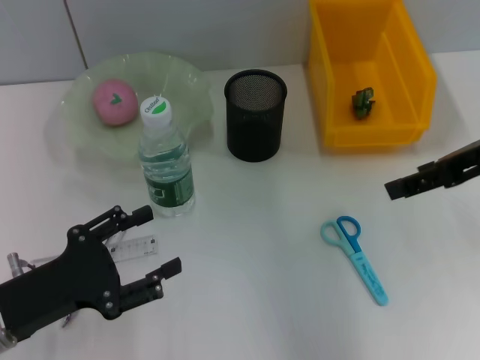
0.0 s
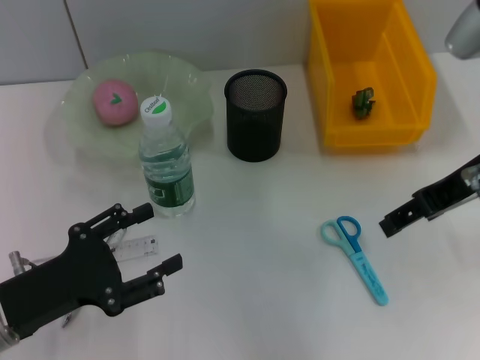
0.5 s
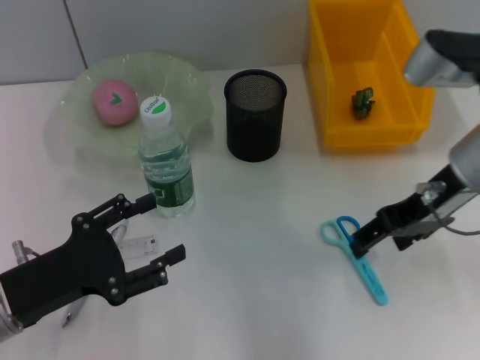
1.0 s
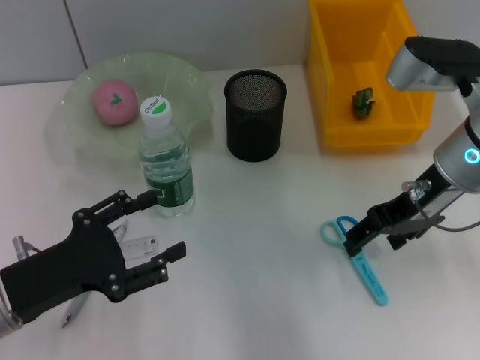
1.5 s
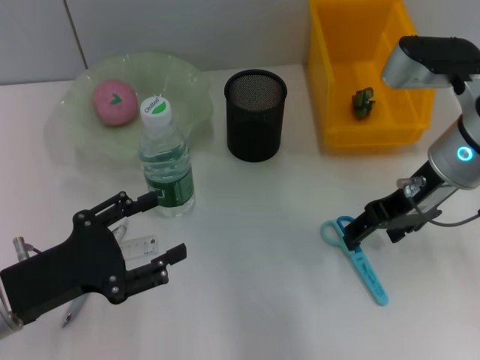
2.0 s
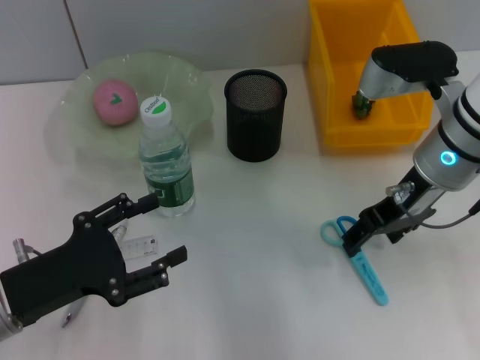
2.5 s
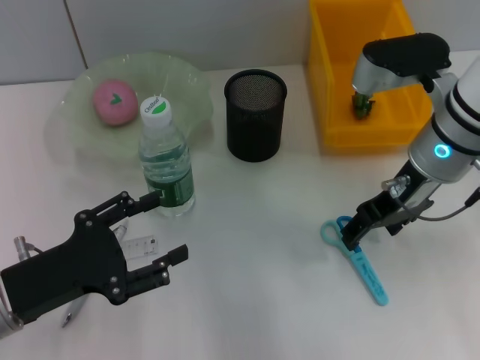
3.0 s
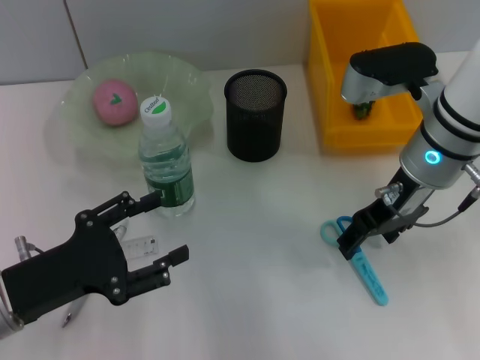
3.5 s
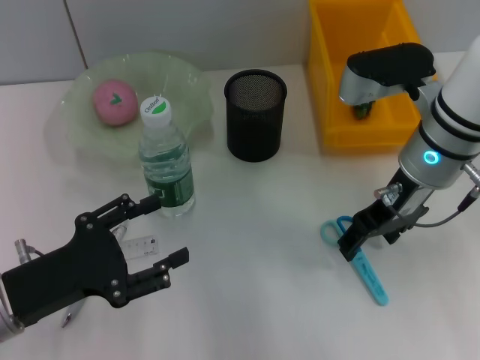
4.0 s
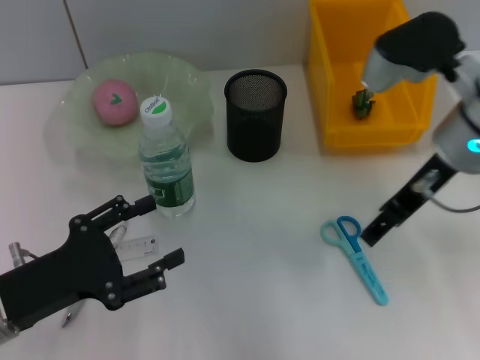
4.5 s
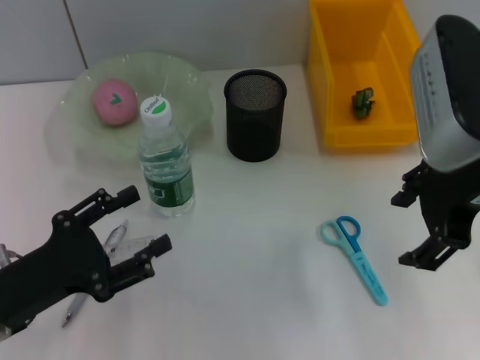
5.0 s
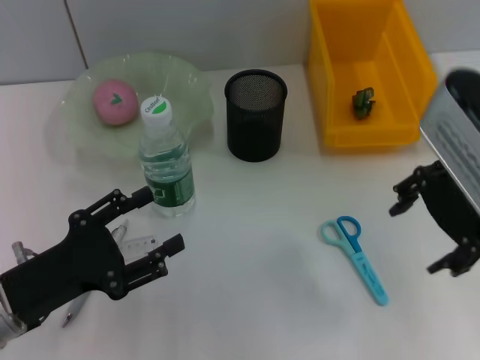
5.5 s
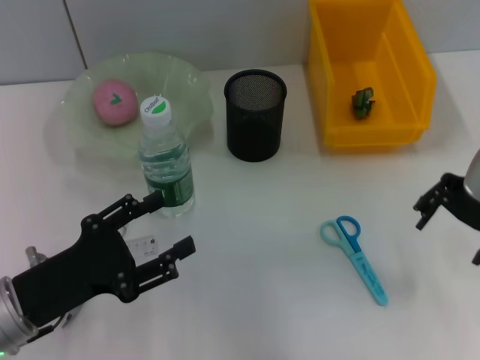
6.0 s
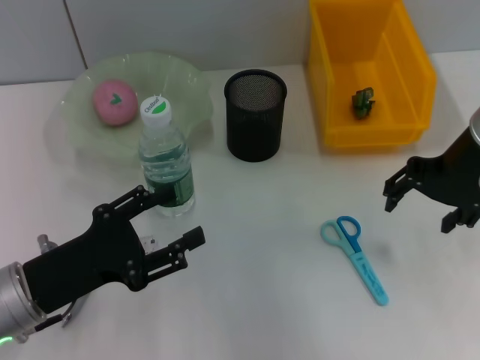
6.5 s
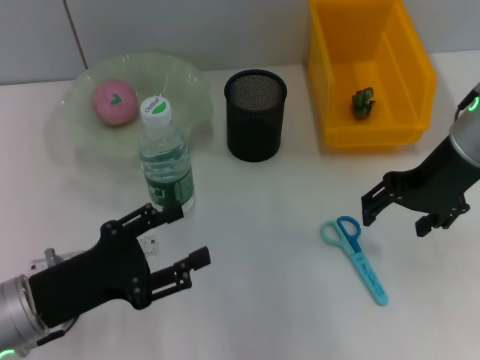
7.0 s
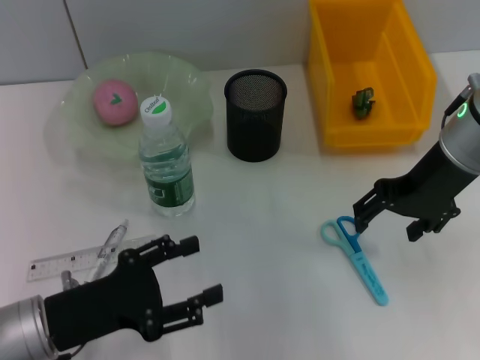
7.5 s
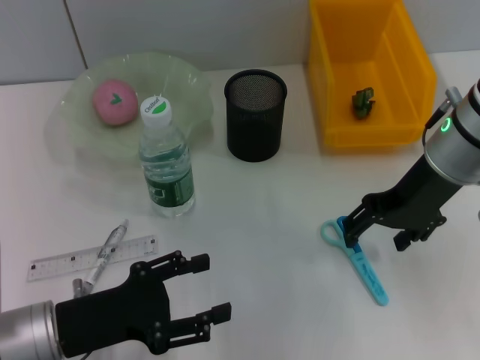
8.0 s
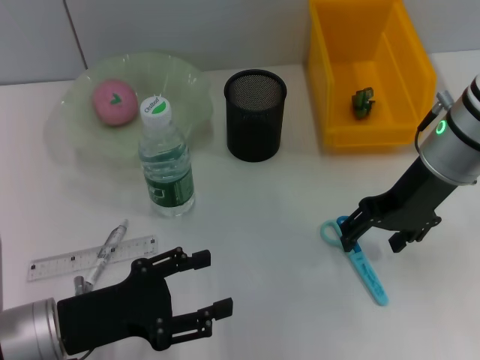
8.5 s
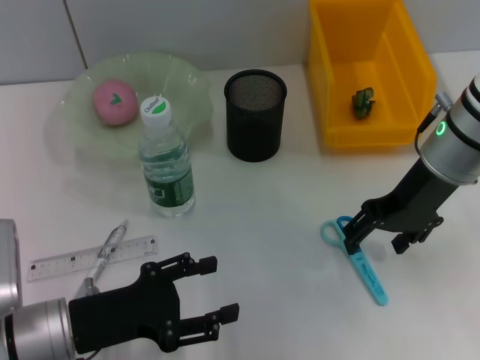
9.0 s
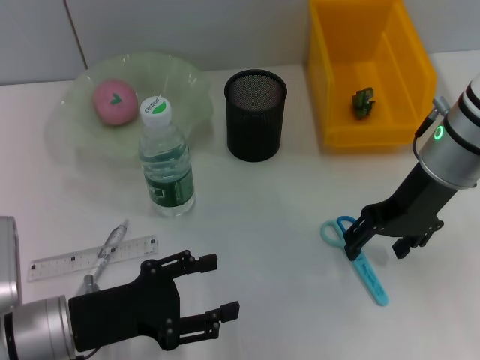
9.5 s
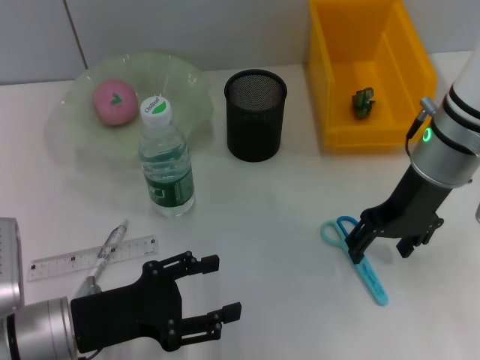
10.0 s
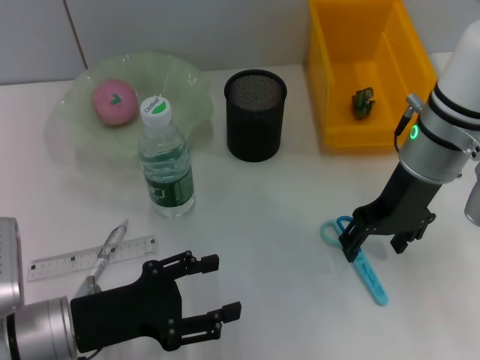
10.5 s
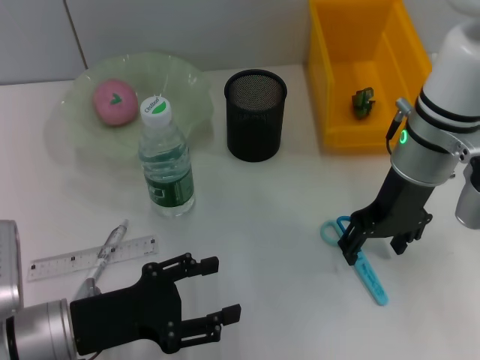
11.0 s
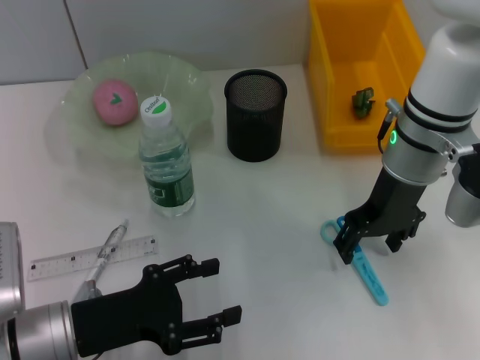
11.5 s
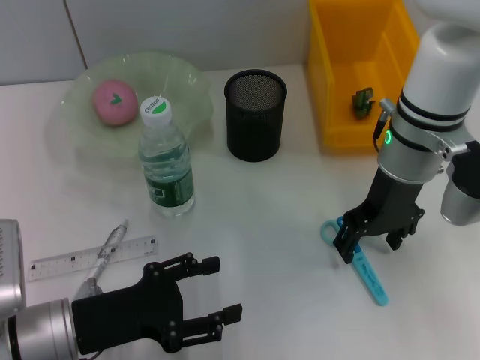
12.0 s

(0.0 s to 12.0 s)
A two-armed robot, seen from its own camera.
0.0 s - 2.0 s: The right gripper heads to the left and downward, covering some 10 cm.
2.0 s - 4.0 s: The grippers stay close to where they were, moving slightly.
4.0 s - 6.0 s: The right gripper travels upward by about 5 cm.
6.0 s - 8.0 s: The right gripper ends up about 5 cm from where it was.
8.0 s - 12.0 s: The grippers stay close to where they were, moving slightly.

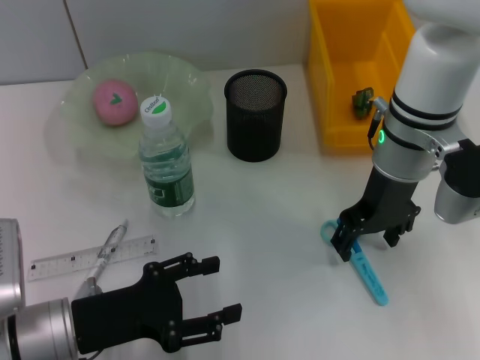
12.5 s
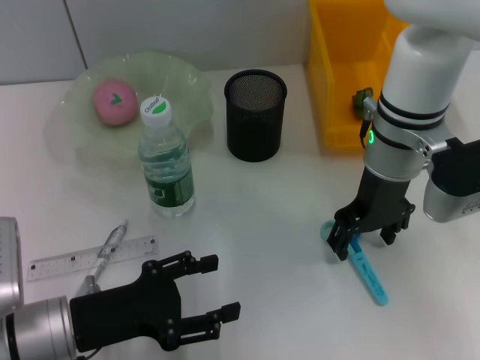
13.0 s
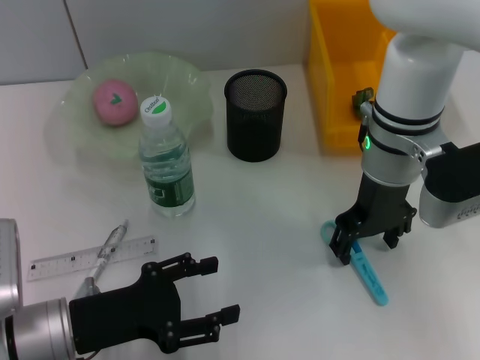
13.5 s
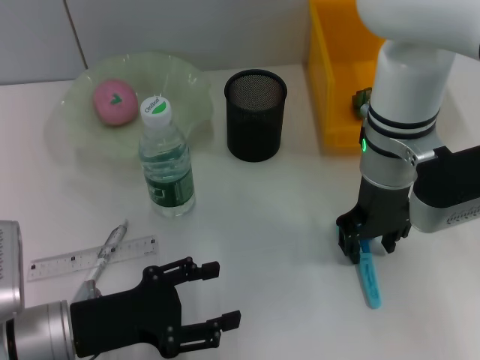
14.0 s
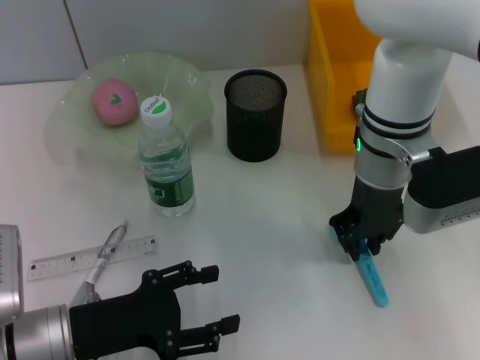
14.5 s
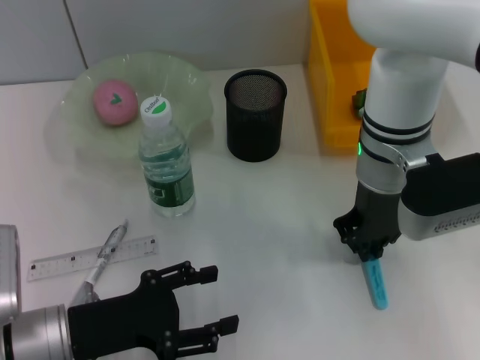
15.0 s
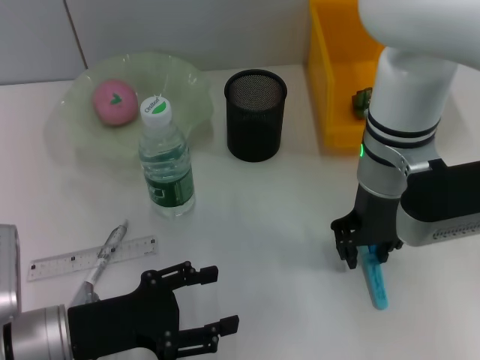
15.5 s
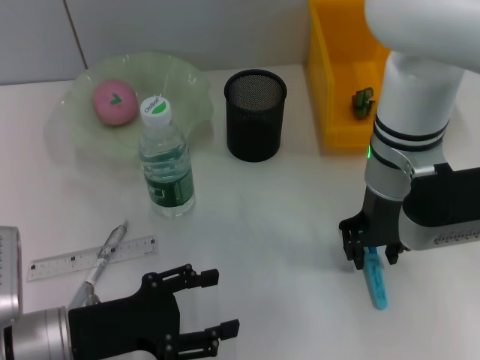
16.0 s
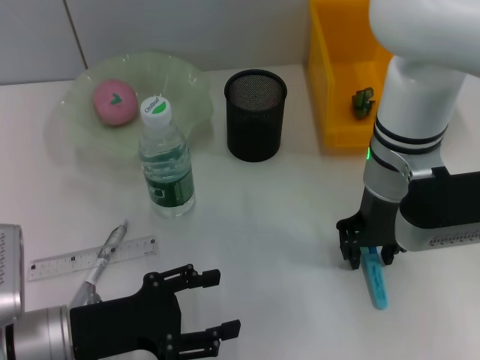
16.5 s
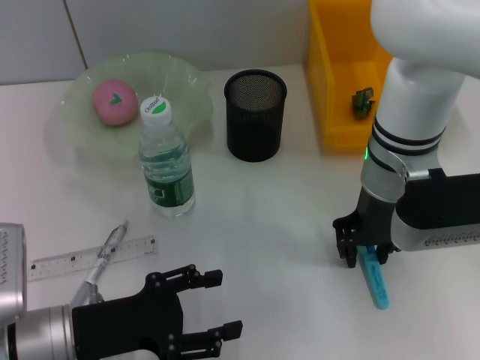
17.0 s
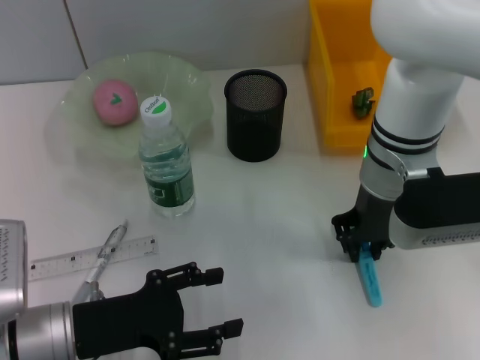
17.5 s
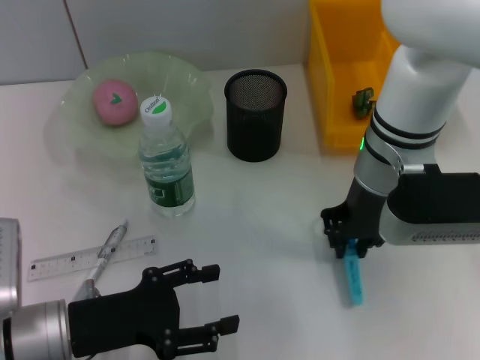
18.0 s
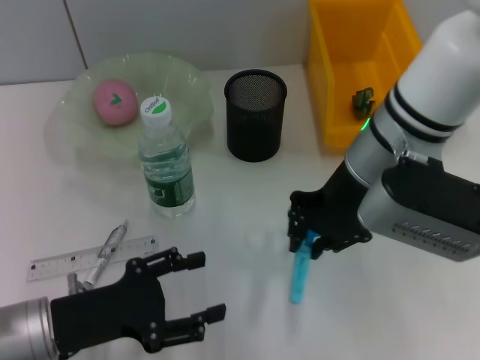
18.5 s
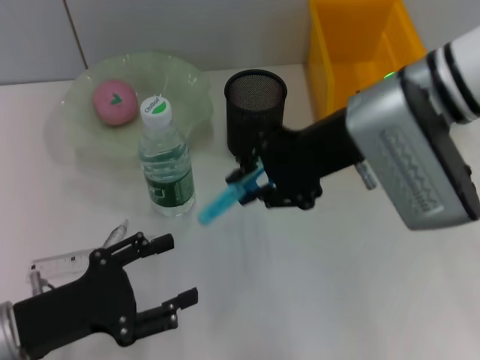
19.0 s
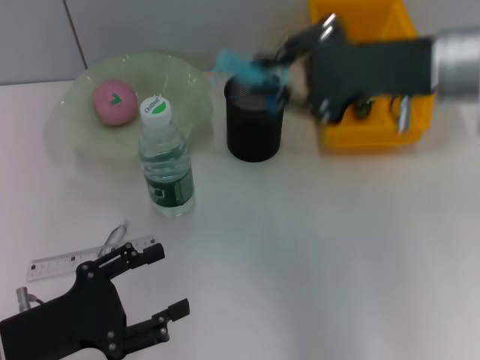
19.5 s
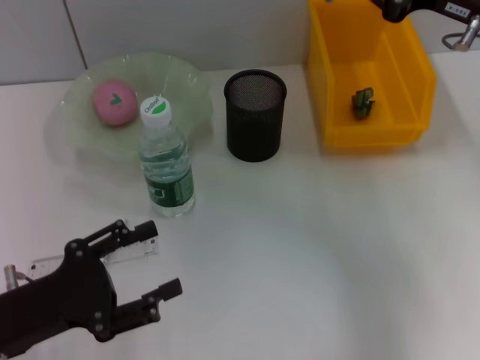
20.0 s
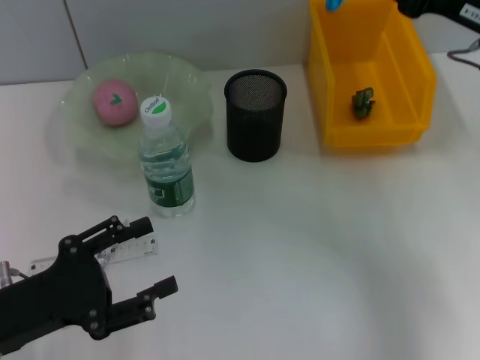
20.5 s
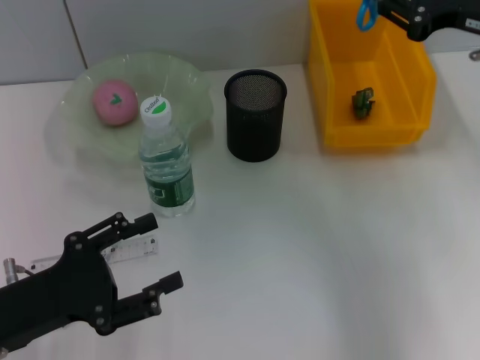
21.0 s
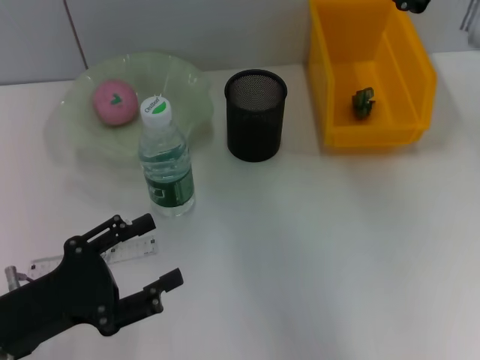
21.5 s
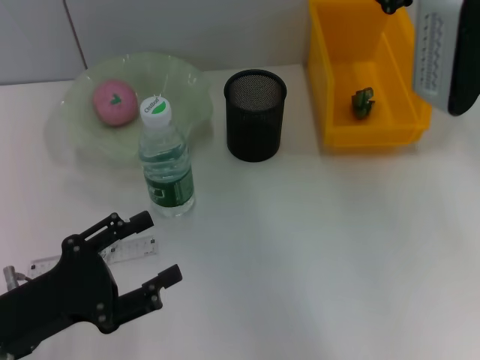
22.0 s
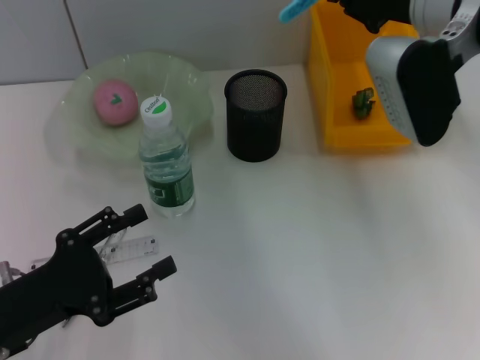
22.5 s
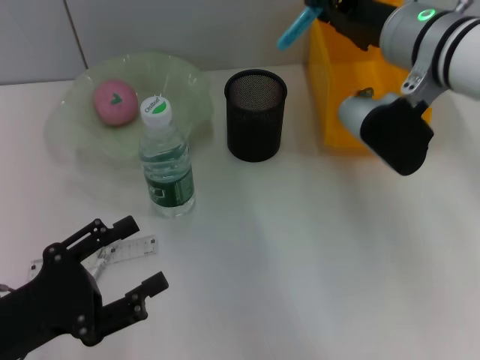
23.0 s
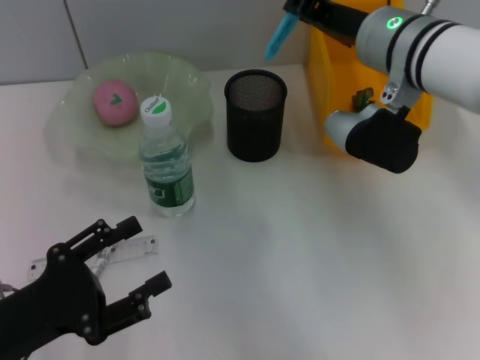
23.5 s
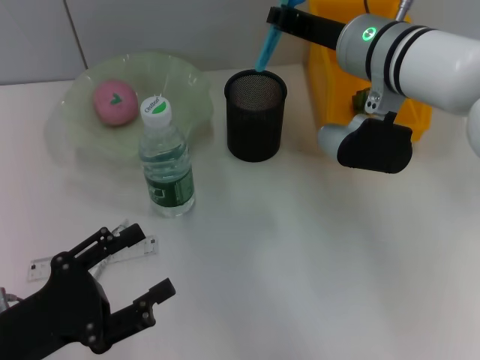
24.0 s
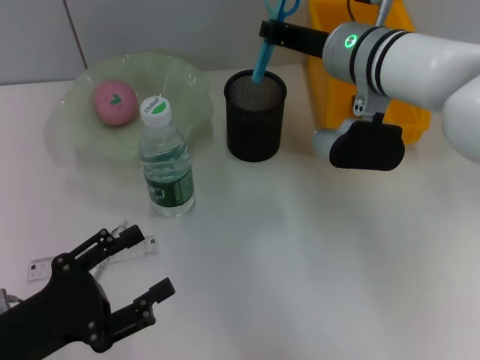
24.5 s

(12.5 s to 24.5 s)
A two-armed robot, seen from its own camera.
Step, 12.5 s - 17.0 s: Grab the blue scissors with the right hand.
12.5 s - 14.5 s: The right gripper closes.
14.5 s - 16.5 s: The grippers make only small movements.
18.5 s - 20.5 s: The right gripper goes roughly 15 cm to the right.
20.5 s - 22.5 s: The right gripper shifts about 10 cm to the left.
22.5 s - 24.5 s: The right gripper is displaced downward and to the left by some 10 cm.

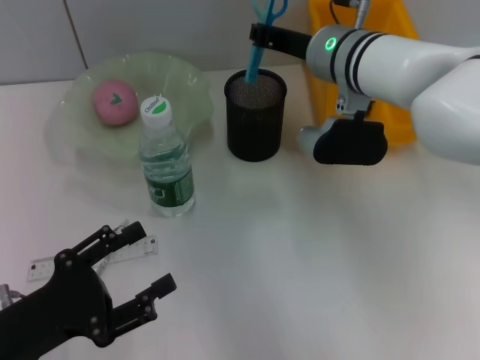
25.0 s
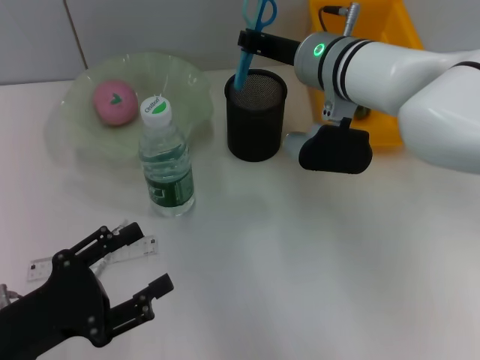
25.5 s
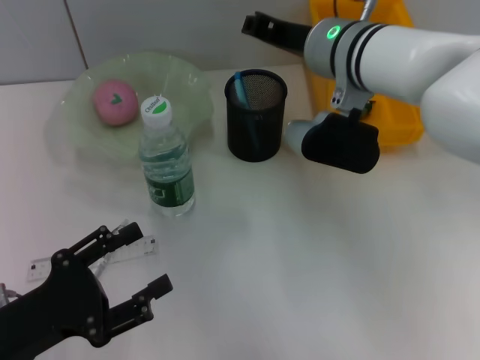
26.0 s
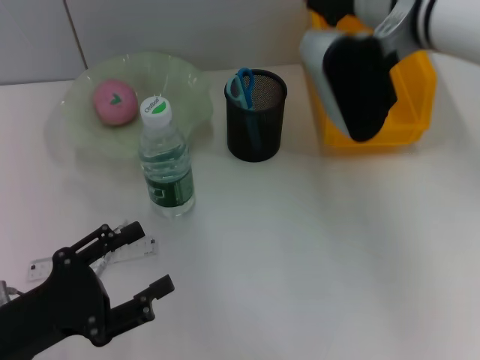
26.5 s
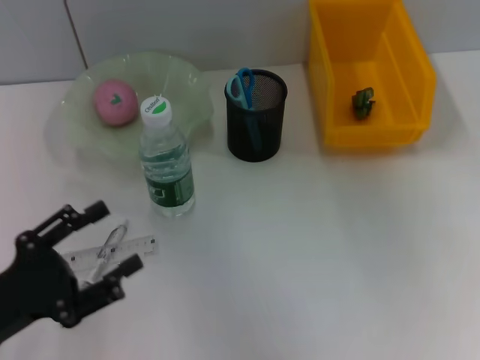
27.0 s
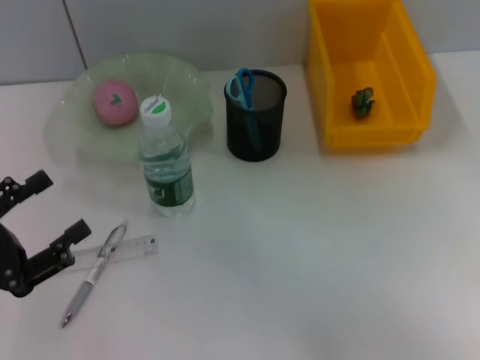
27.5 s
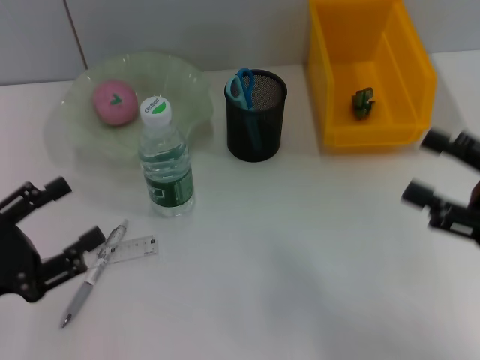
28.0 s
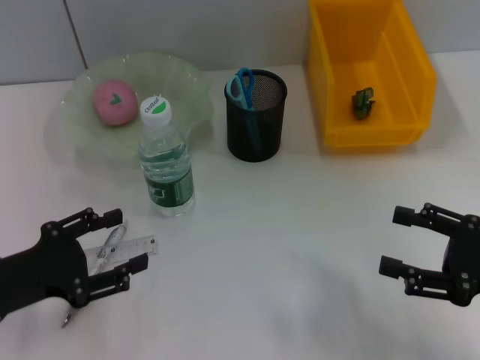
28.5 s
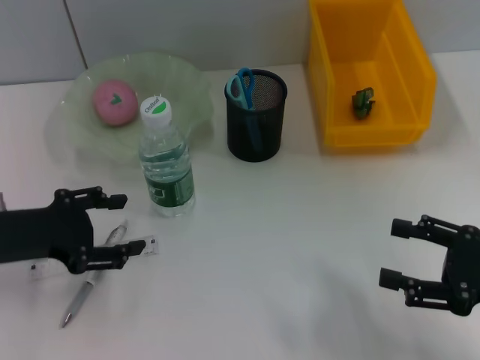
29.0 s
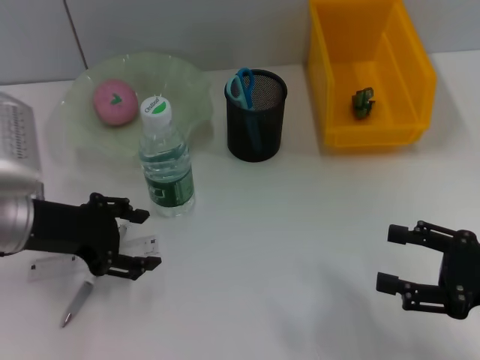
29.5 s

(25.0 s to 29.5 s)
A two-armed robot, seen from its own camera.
25.0 s - 27.0 s: The right gripper moves upward, backward and to the right, about 20 cm.
27.0 s - 29.5 s: The right gripper heads downward, backward and to the right, covering approximately 25 cm, and opens up. The left gripper goes about 15 cm forward and upward.
